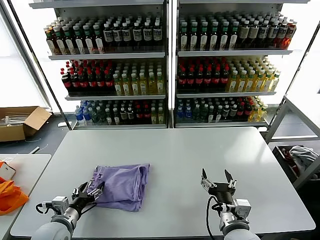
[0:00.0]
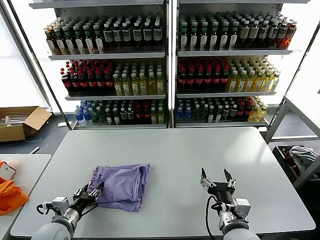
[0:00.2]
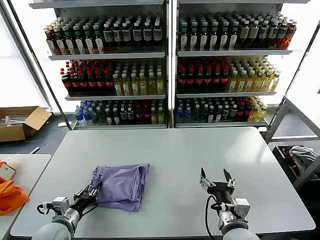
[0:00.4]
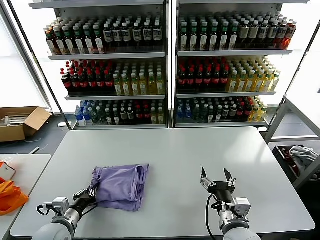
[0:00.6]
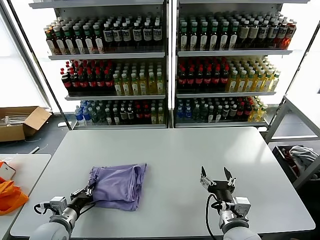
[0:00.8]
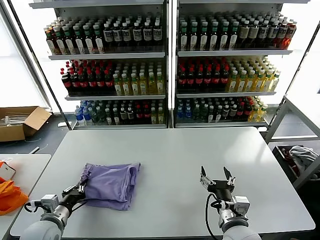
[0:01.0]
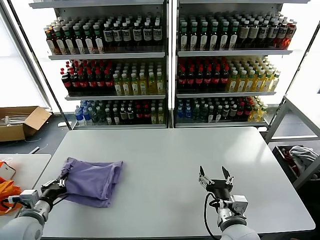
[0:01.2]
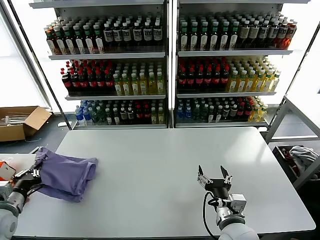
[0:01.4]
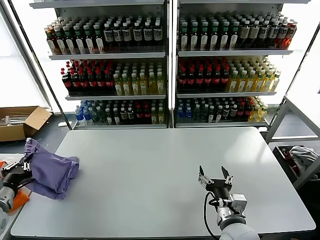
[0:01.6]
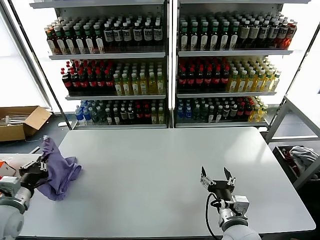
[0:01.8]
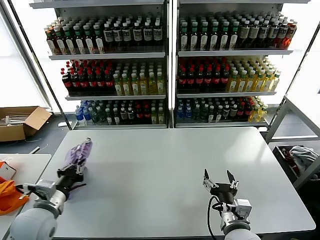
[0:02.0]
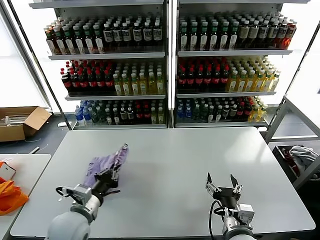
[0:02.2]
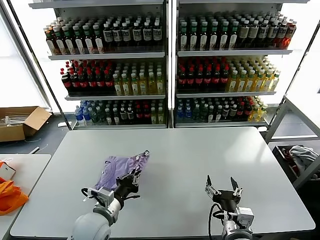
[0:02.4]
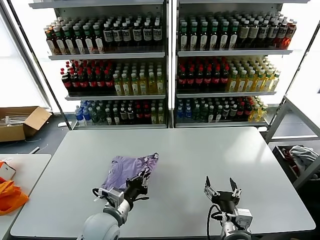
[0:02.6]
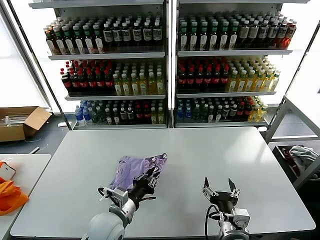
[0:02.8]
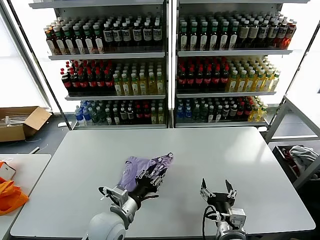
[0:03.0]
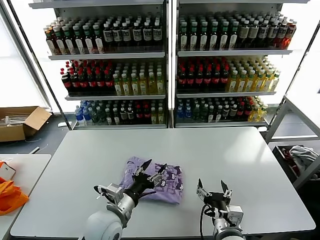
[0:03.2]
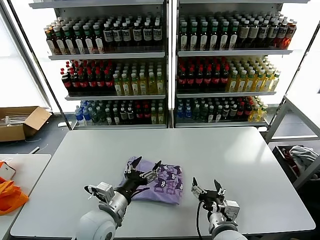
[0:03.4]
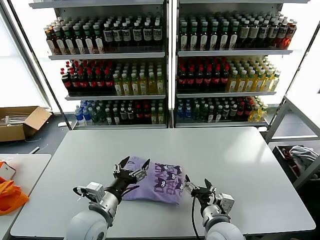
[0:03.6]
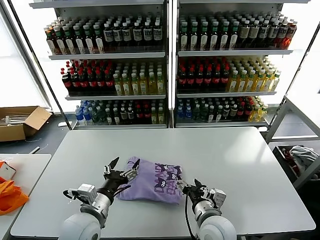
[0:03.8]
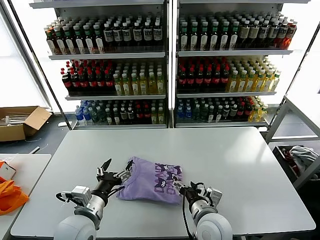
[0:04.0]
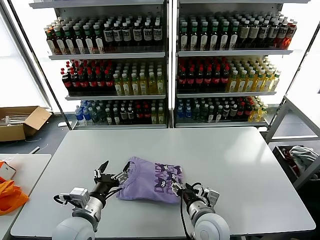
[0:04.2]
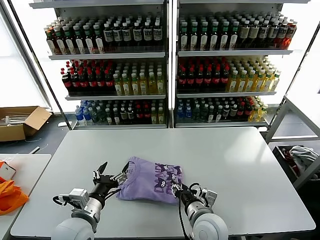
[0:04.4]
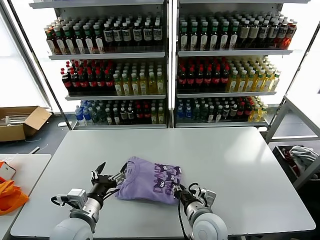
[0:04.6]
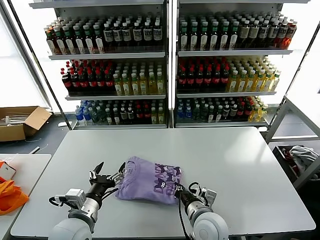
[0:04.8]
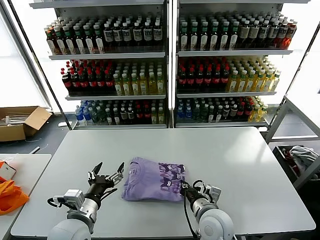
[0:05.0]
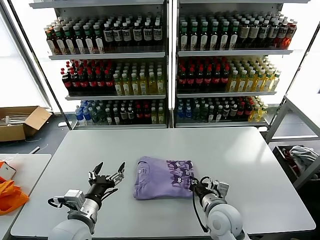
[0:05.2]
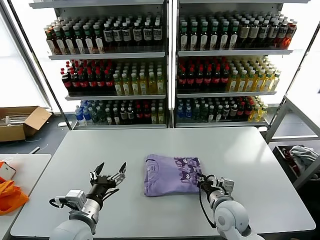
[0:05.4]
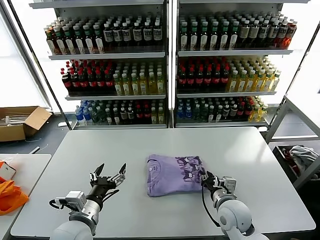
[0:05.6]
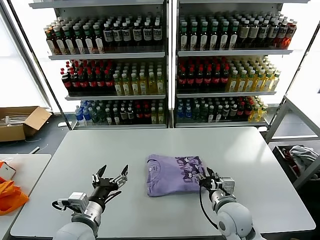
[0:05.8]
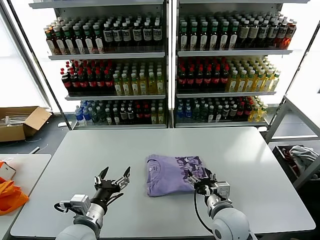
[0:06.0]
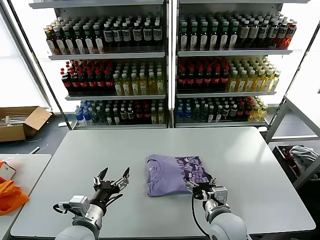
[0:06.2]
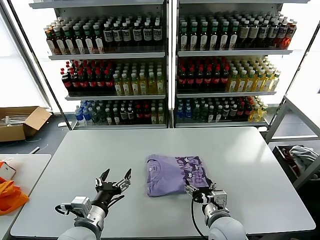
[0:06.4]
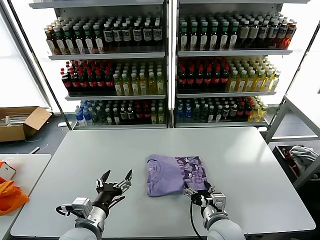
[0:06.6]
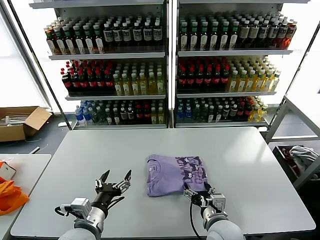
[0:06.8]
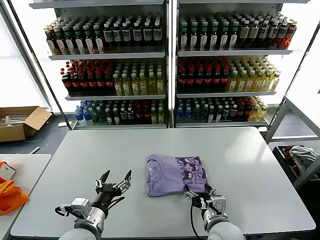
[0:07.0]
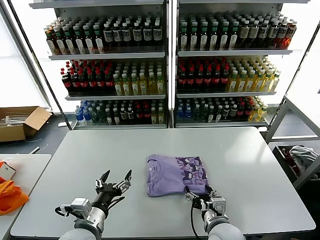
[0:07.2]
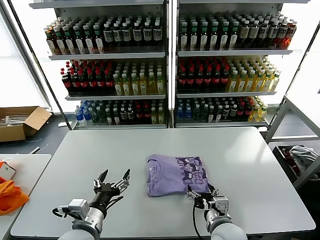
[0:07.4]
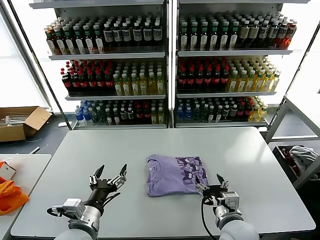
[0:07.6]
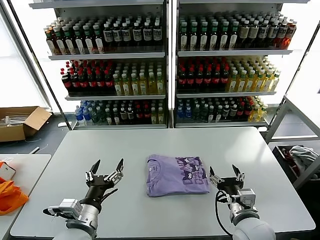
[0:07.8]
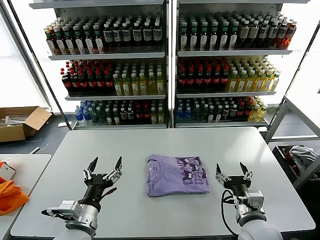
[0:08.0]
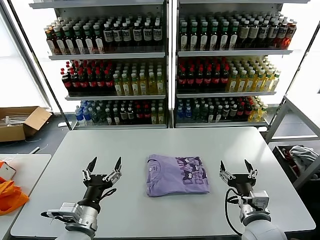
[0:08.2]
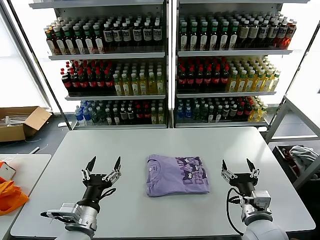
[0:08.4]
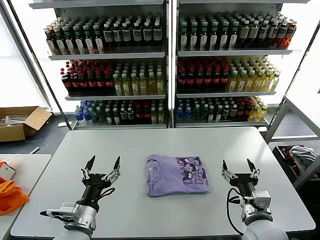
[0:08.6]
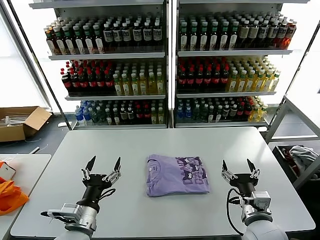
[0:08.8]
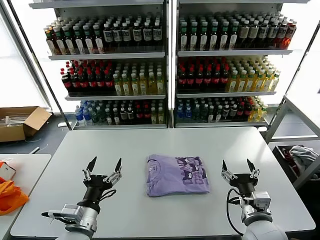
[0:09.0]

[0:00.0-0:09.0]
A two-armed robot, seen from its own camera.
Task of the whole recording: fold and organize the clothes.
Step, 0:00.0 to 0:03.0: Flip the folded clothes over with left gripper.
Step, 0:03.4 to 0:07.4: Drag the clothes to the center of the table.
0:00.0 to 0:01.6: The left gripper travels to the left and upward by some 15 cm, and closes up.
0:01.6 to 0:03.0: The left gripper shifts approximately 30 cm to the right, and opens its fingers.
0:03.0 to 0:04.4: The left gripper goes about 5 cm to the left, and opens its fingers, while the right gripper shifts about 10 cm forward and to the left.
0:04.4 to 0:06.0: The right gripper is displaced to the right by roughly 5 cm, and closes and opens again.
0:06.0 to 0:07.6: The grippers stay close to where they were, moving slightly.
0:07.6 to 0:09.0: The right gripper shifts some 5 cm to the right.
